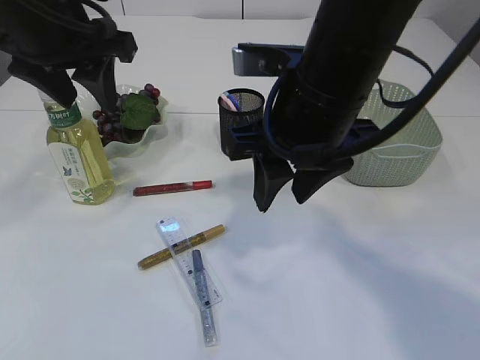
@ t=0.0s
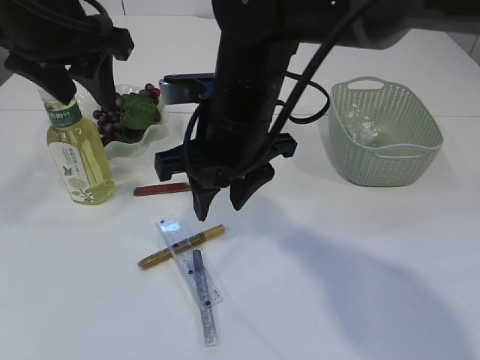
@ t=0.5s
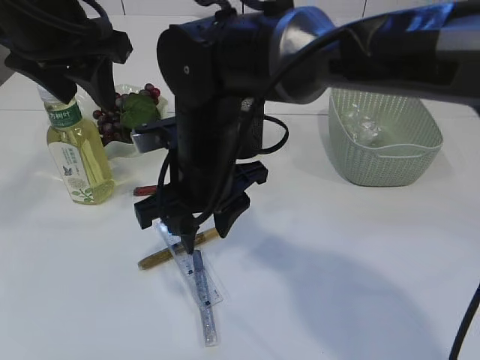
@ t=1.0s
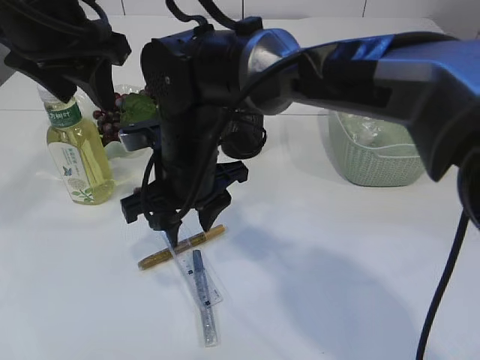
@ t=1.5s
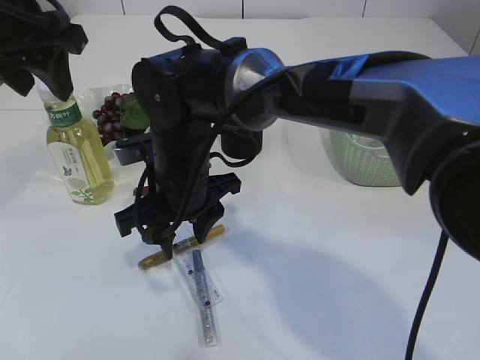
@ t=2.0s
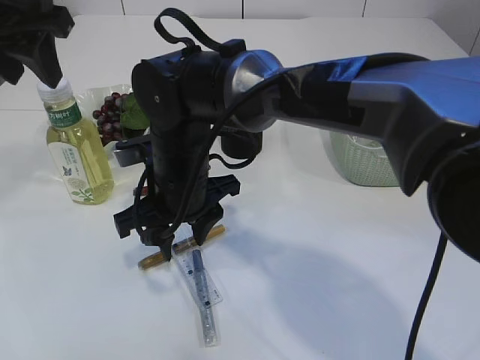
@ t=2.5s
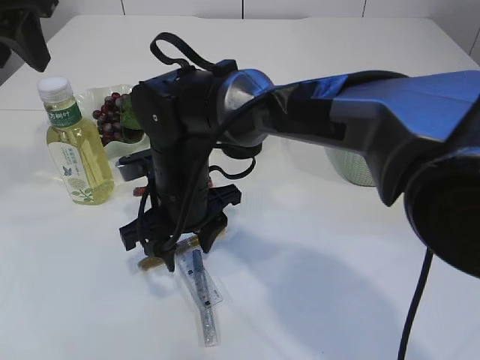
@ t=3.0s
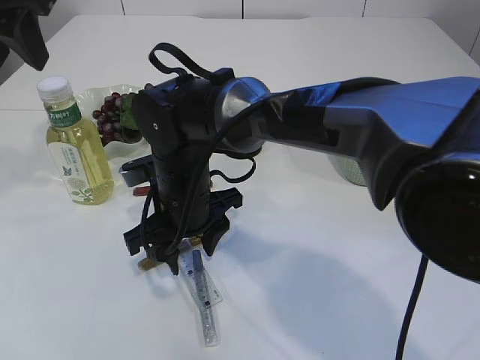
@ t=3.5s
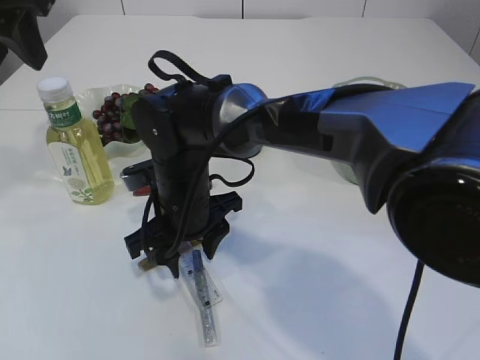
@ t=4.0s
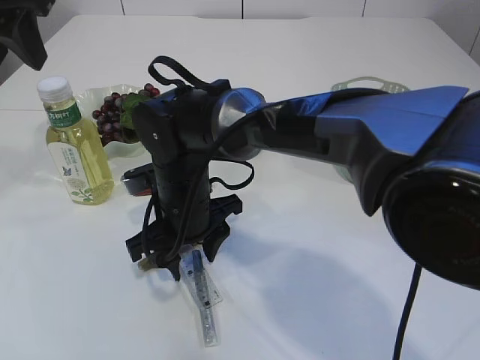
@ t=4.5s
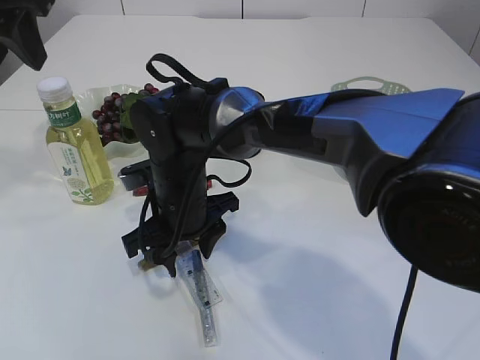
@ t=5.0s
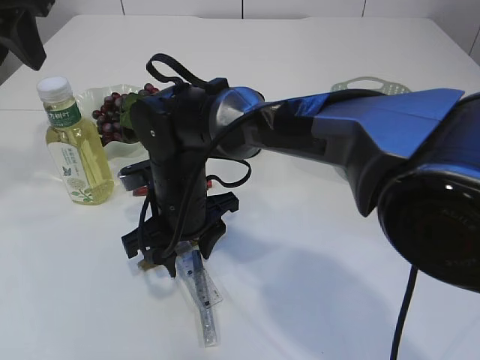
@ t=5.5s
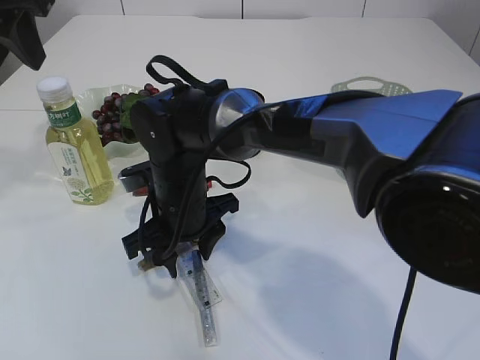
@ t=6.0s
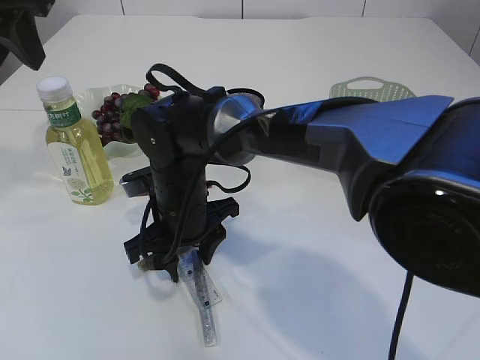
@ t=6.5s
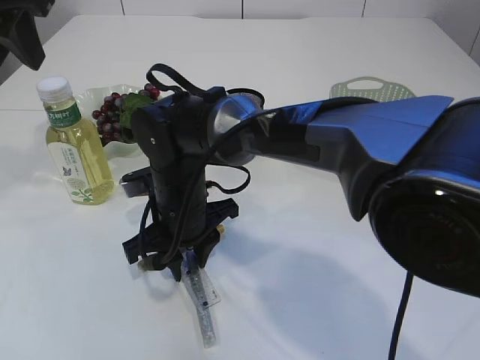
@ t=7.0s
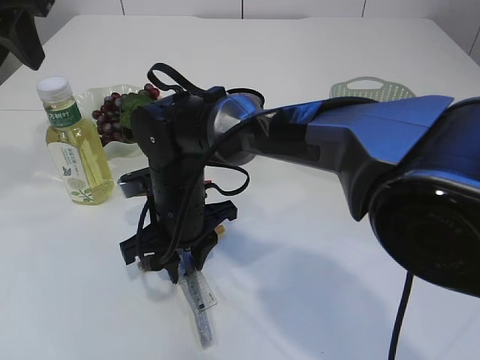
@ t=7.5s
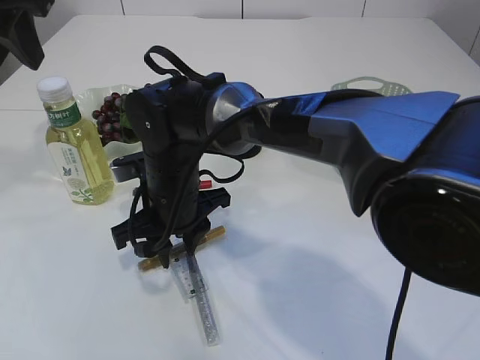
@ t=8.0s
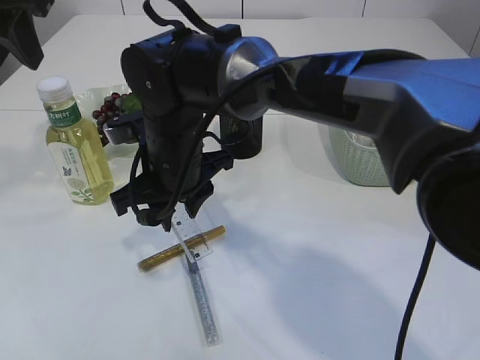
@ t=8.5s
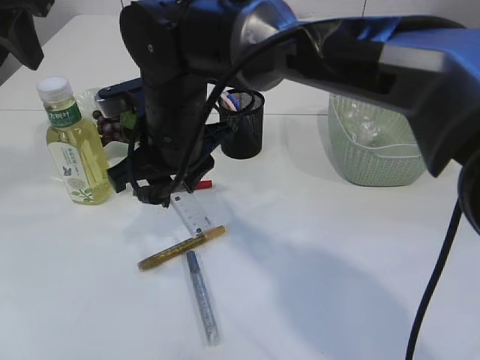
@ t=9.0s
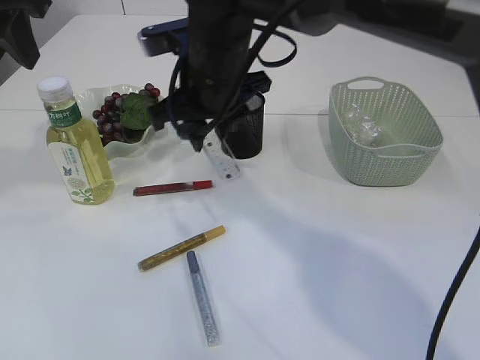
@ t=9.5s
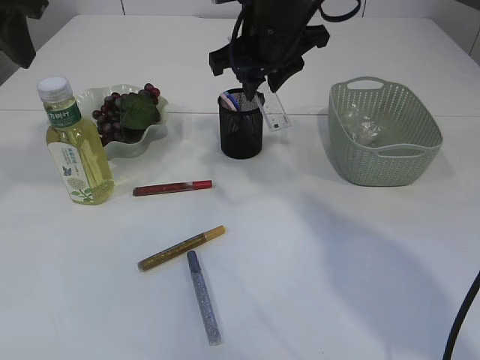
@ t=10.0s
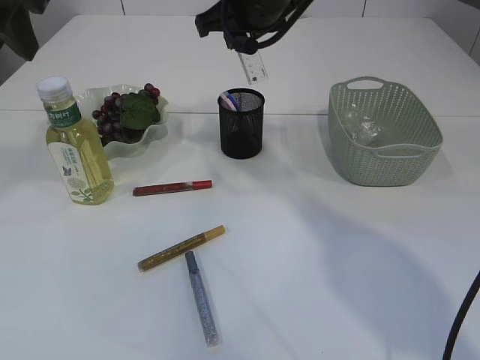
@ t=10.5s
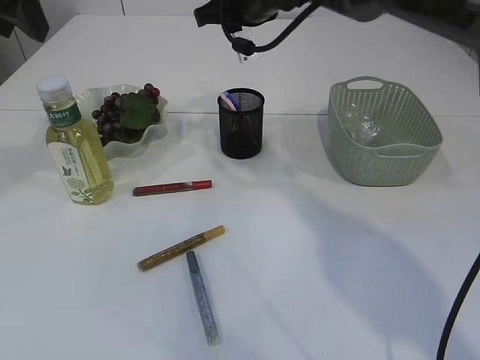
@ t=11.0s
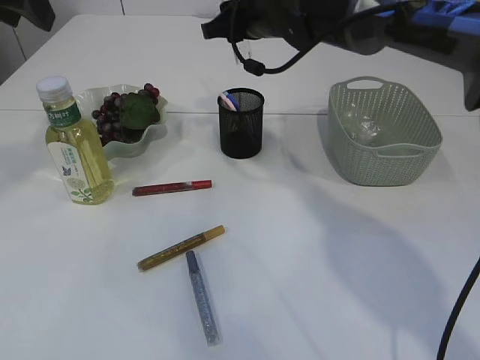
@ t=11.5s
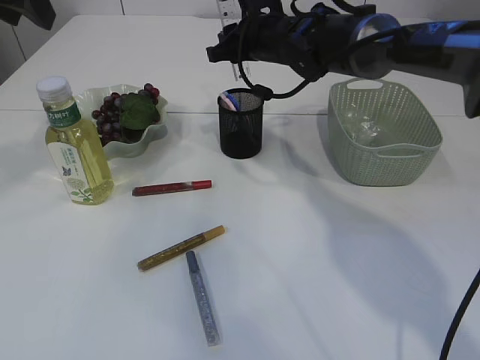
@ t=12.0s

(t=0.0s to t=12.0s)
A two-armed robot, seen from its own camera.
Step, t=0.0s - t=8.5s: pick up the ruler.
t=0.0s - t=2.0s: The right gripper is displaced to the left and downward by roughly 15 cm.
t=4.0s - t=8.0s: The two grippers keep their place.
t=8.0s - t=10.0s: The right gripper travels upward, to the right and forward by some 20 cm.
t=10.0s - t=12.0s: The right gripper shifts some 10 cm forward and downward.

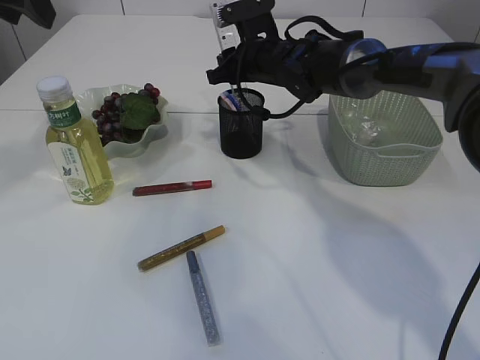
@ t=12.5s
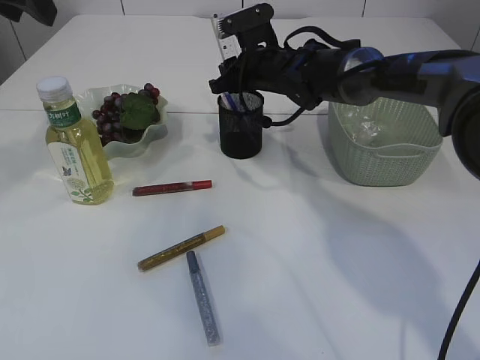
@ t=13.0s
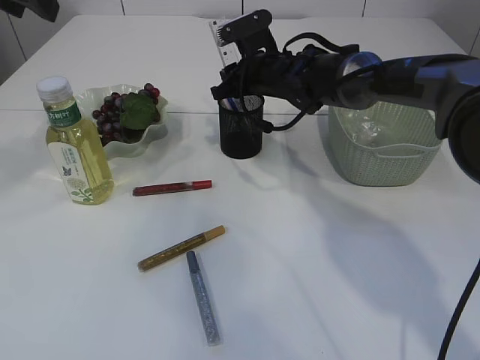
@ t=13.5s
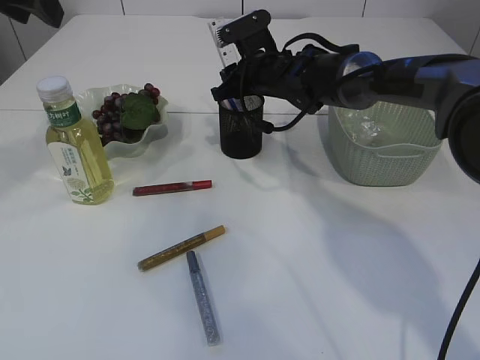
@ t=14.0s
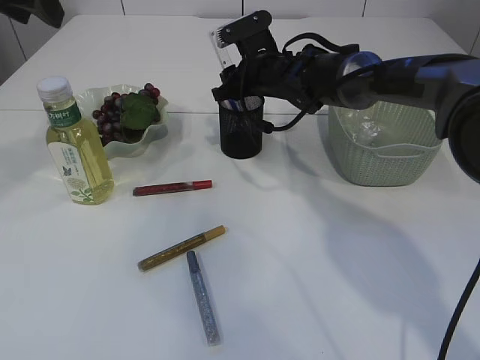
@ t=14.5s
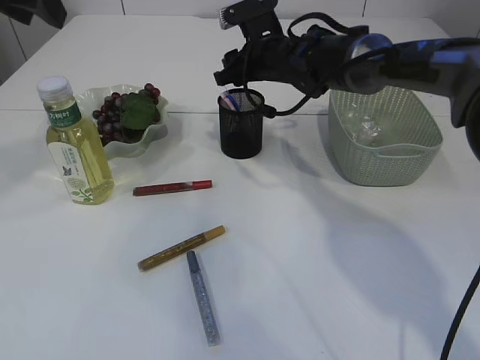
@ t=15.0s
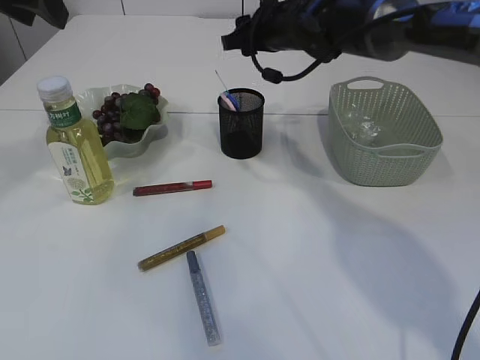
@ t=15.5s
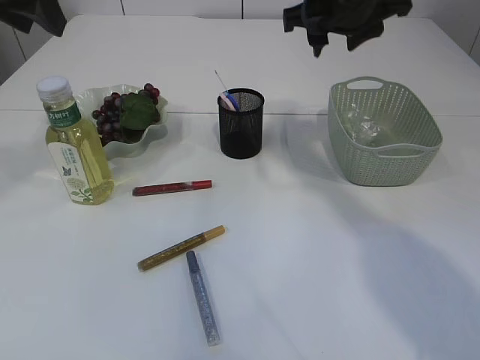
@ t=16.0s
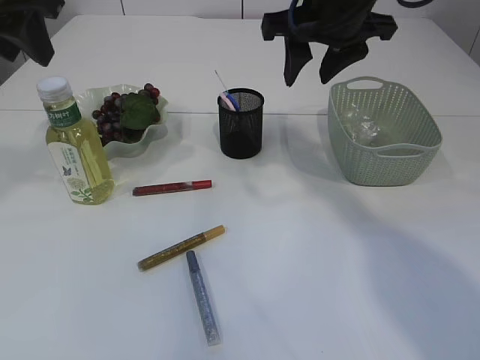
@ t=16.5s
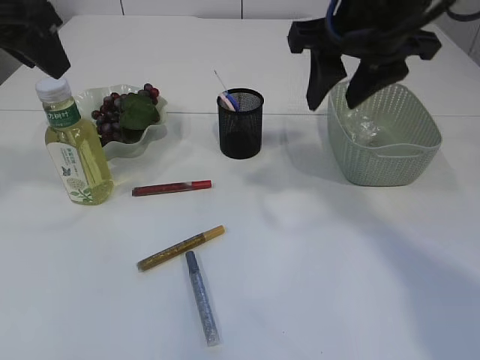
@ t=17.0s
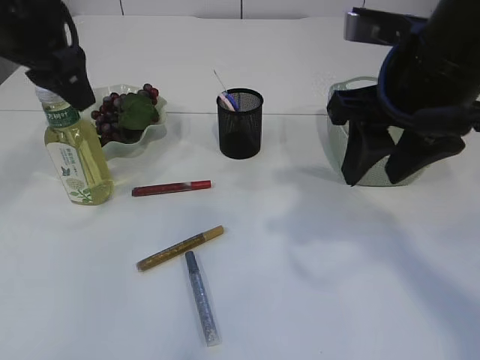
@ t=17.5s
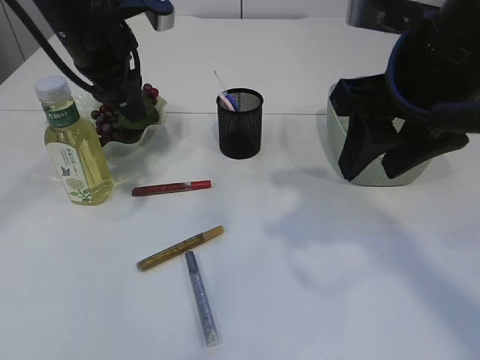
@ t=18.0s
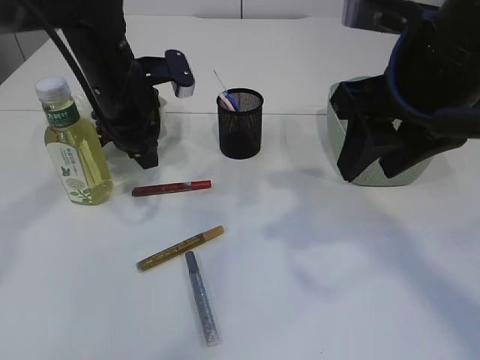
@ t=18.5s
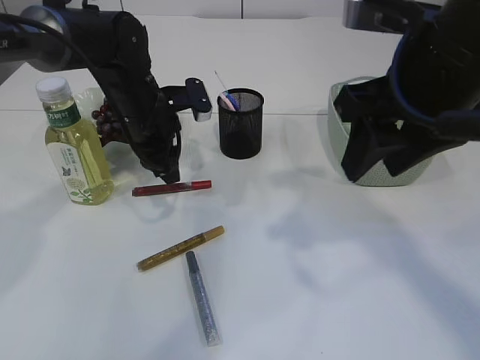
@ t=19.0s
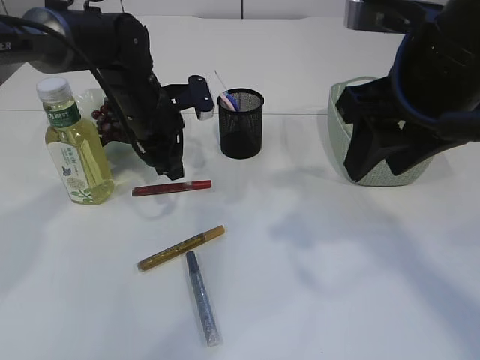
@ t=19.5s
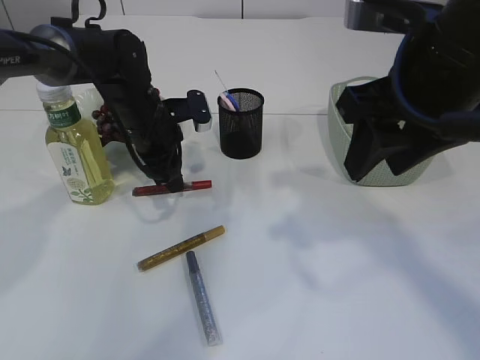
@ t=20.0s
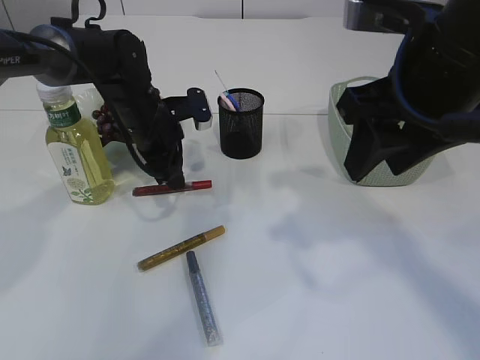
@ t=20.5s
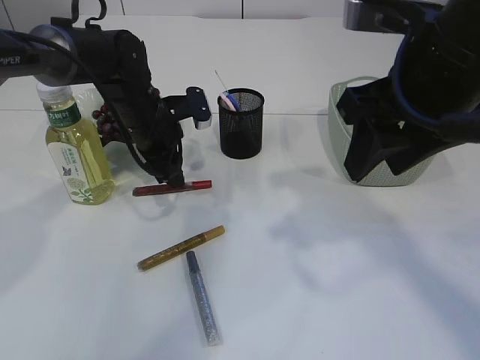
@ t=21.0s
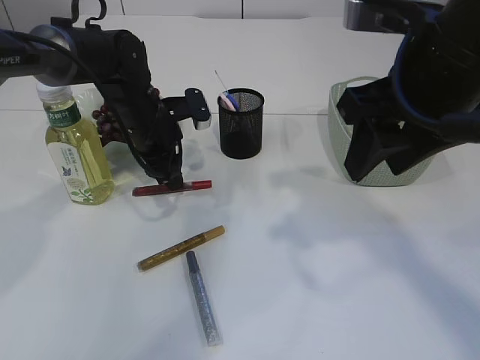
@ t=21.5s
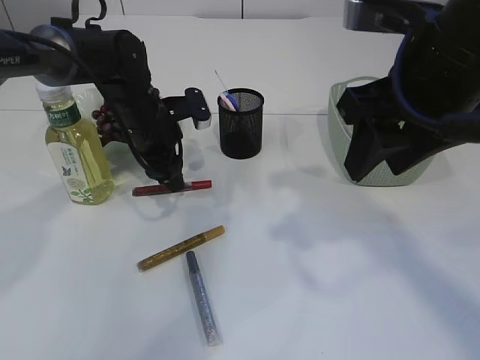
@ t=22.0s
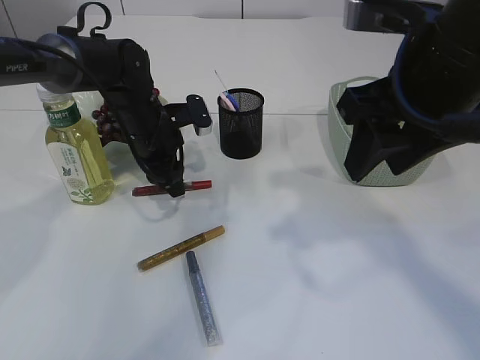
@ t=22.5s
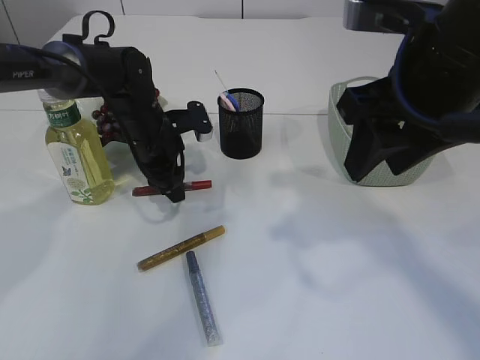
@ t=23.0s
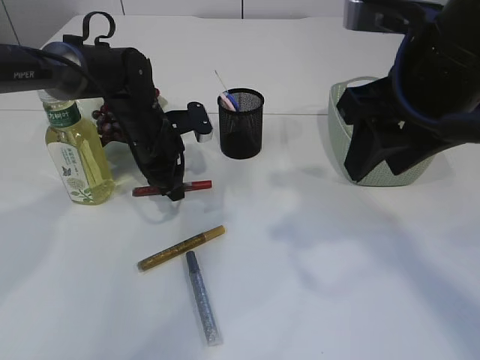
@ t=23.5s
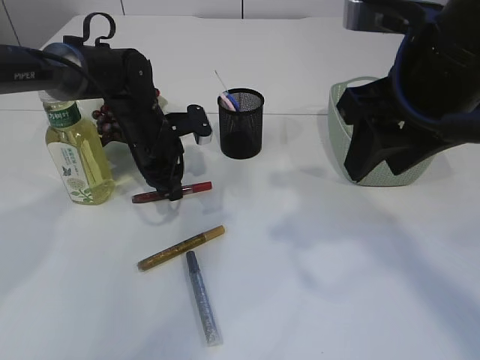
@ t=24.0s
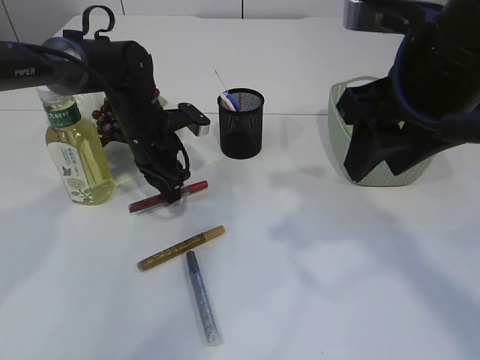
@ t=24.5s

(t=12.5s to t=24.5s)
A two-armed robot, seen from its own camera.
Step, t=12.5s - t=15.0s: Place the ruler into the pen holder.
t=12.5s - t=14.5s: The grippers make only small movements.
t=14.5s - t=16.5s: The right gripper heads upward and backward, covering approximately 20 cm.
t=16.5s - t=18.5s: The left gripper shifts roughly 20 cm downward, forward and to the right. The right gripper goes about 15 cm backward.
t=18.5s - t=20.5s: The left gripper goes about 10 cm downward.
t=20.5s - t=22.5s: Both grippers stay put.
t=22.5s - t=24.5s: The left gripper closes its fingers.

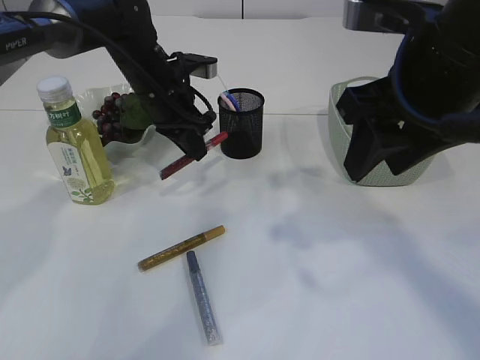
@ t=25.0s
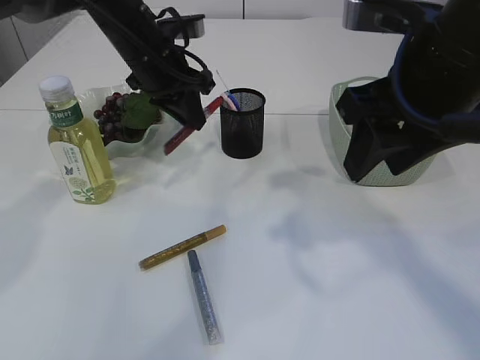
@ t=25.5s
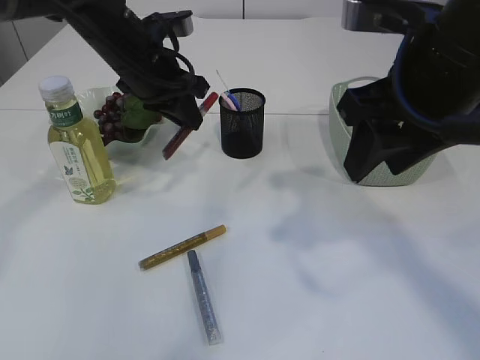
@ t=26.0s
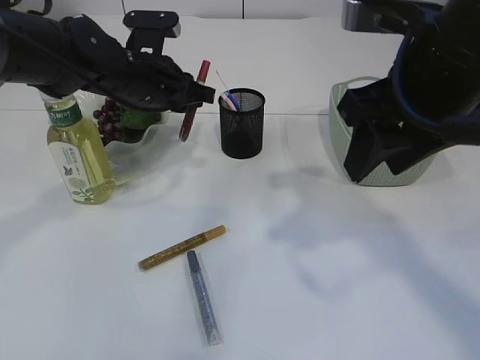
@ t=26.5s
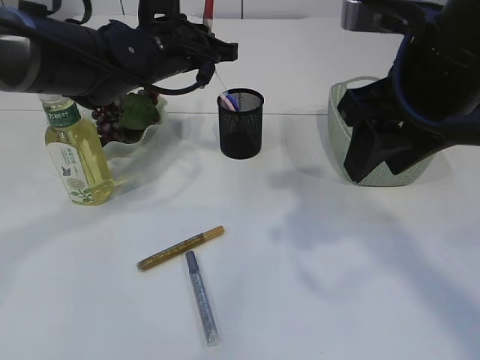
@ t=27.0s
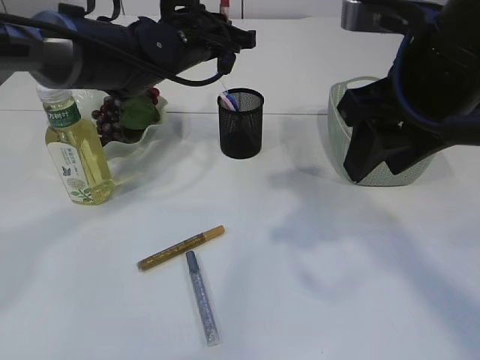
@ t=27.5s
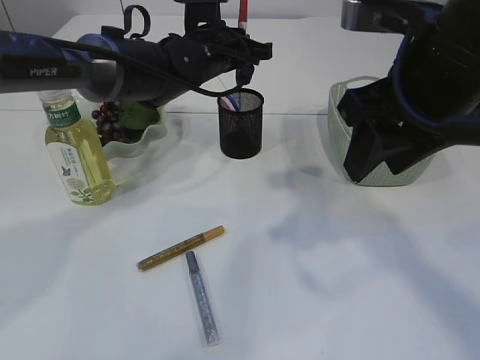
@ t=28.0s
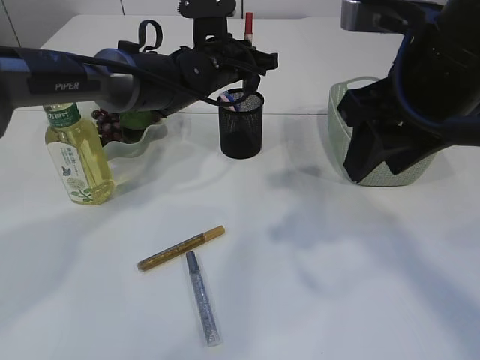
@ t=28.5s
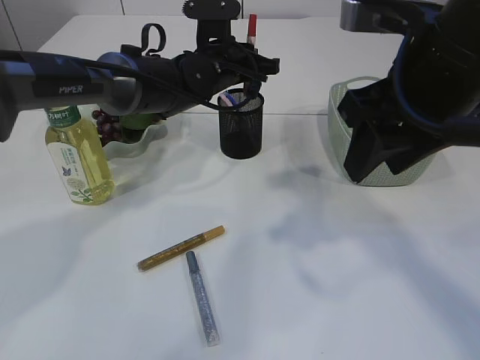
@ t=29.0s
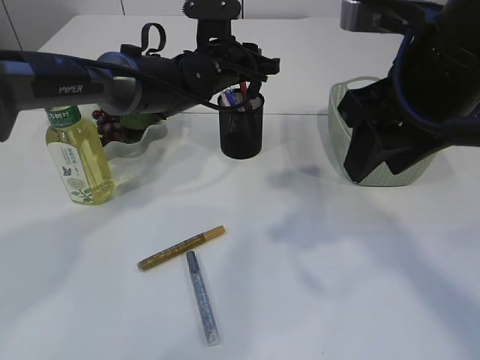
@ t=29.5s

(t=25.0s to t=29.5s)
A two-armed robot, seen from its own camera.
t=25.0s - t=27.0s: The left gripper is displaced upward by some 5 cm.
t=27.0s - t=29.5s: The left gripper travels forward and to the right by some 10 cm.
